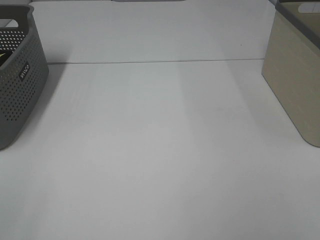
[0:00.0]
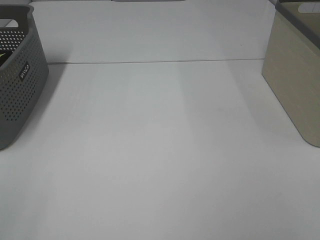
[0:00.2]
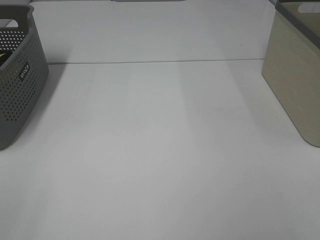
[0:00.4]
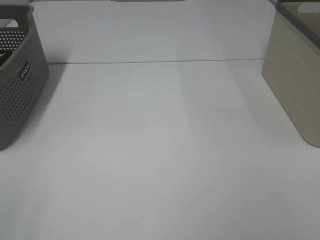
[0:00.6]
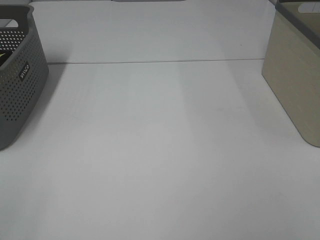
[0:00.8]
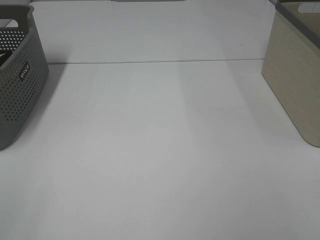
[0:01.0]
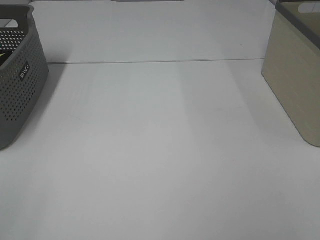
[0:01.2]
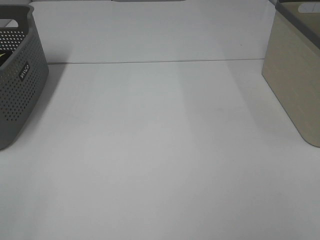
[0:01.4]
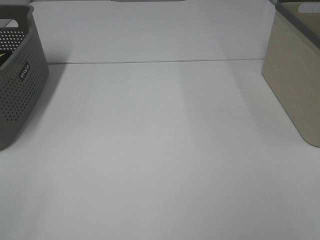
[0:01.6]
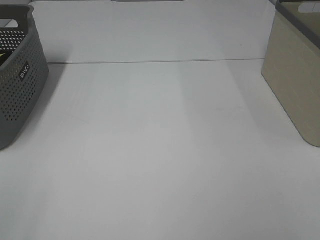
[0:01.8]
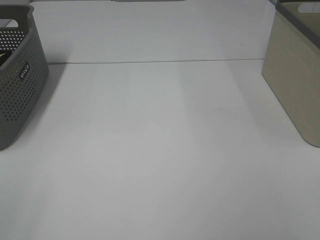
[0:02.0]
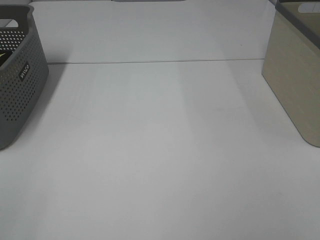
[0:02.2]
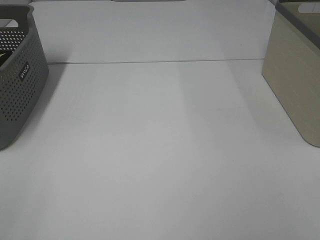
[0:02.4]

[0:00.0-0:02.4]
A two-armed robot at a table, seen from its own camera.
0:01.2 to 0:02.4: Both grippers stay put.

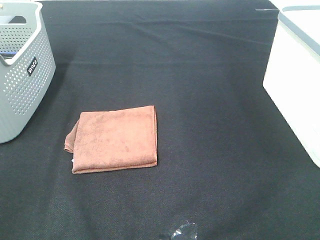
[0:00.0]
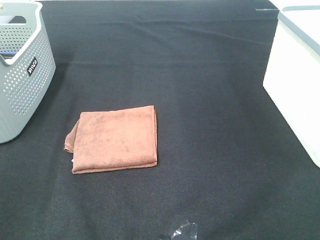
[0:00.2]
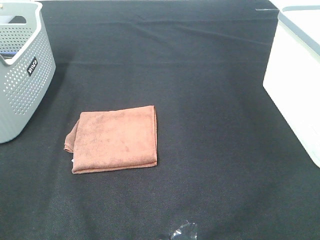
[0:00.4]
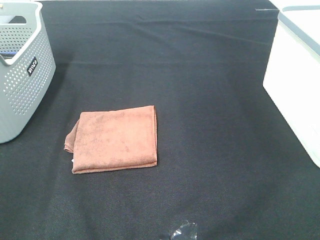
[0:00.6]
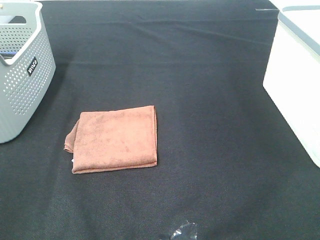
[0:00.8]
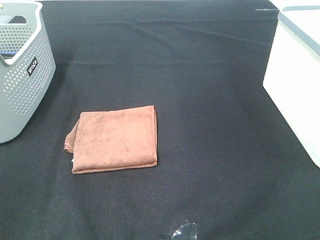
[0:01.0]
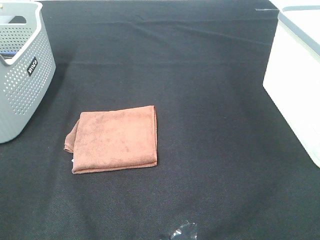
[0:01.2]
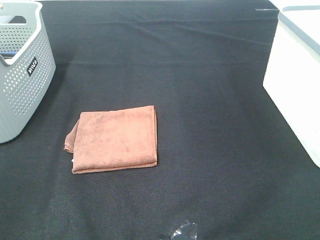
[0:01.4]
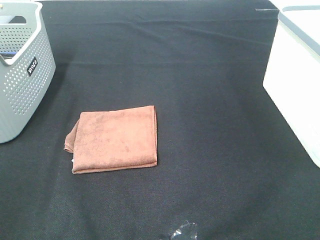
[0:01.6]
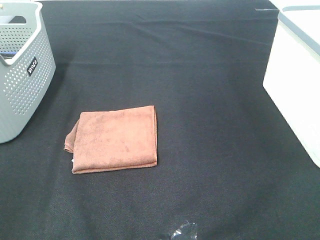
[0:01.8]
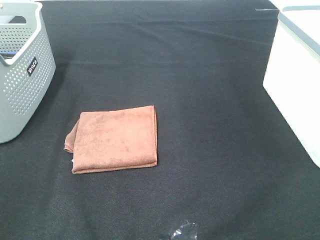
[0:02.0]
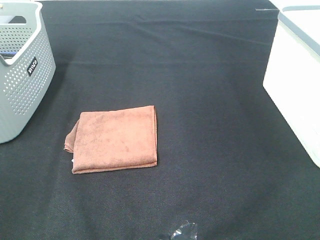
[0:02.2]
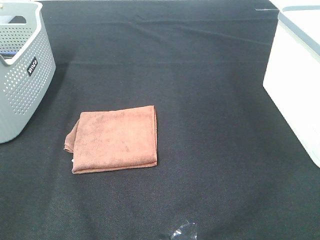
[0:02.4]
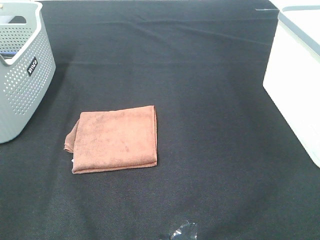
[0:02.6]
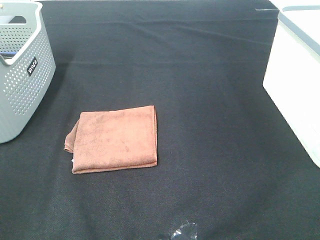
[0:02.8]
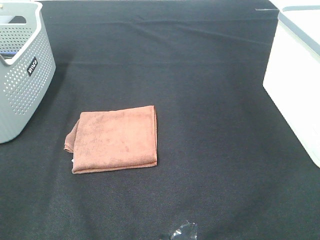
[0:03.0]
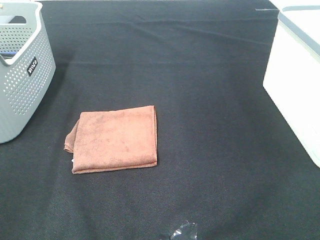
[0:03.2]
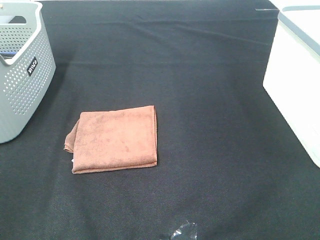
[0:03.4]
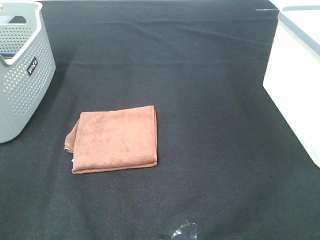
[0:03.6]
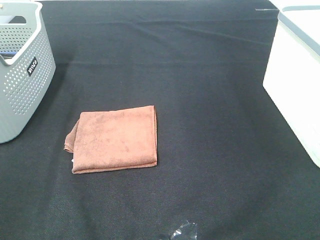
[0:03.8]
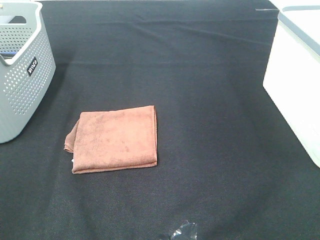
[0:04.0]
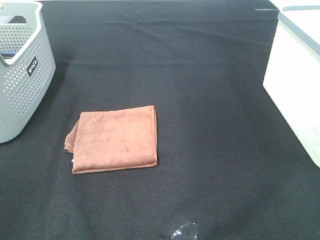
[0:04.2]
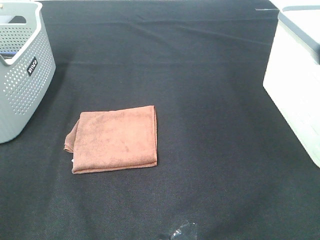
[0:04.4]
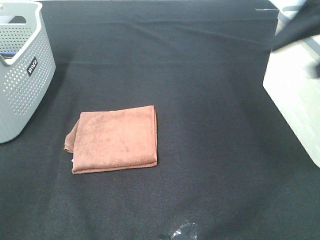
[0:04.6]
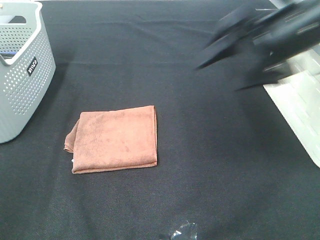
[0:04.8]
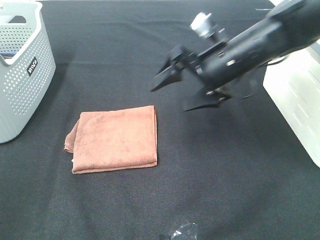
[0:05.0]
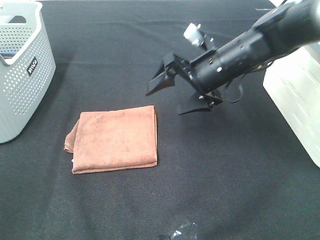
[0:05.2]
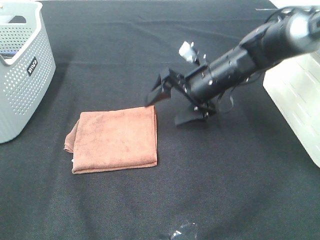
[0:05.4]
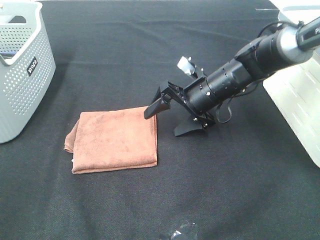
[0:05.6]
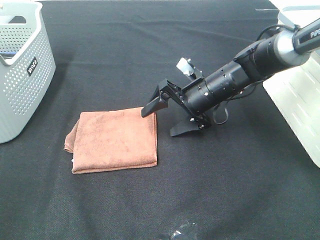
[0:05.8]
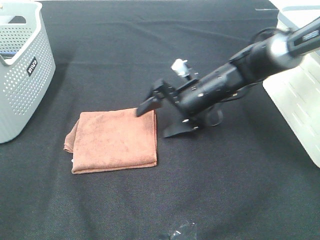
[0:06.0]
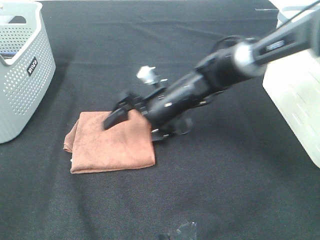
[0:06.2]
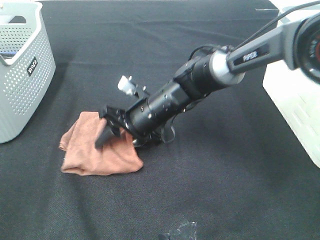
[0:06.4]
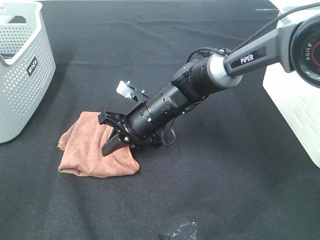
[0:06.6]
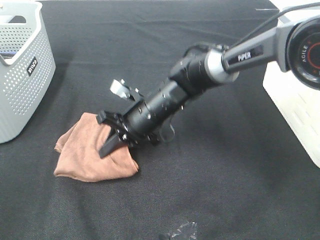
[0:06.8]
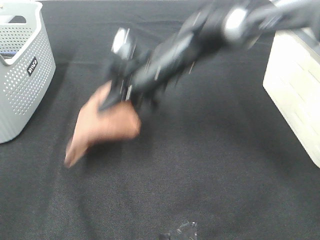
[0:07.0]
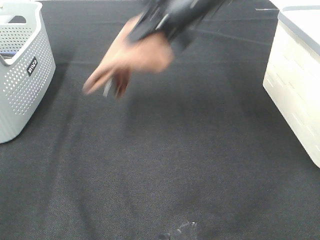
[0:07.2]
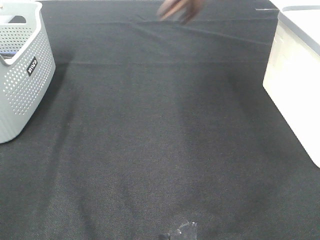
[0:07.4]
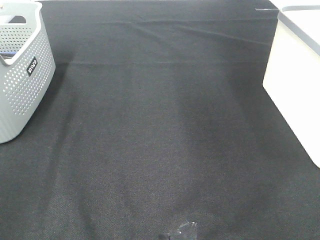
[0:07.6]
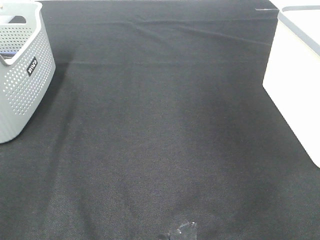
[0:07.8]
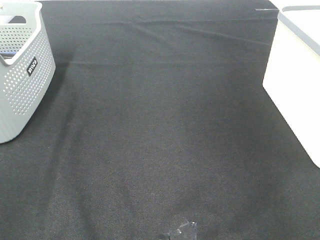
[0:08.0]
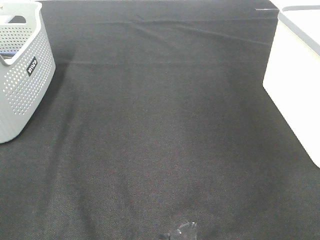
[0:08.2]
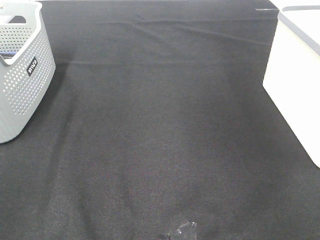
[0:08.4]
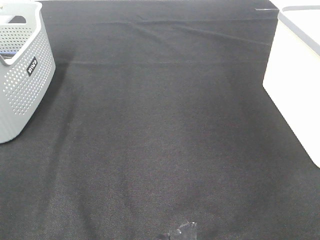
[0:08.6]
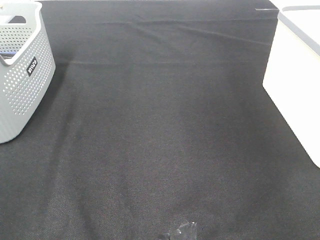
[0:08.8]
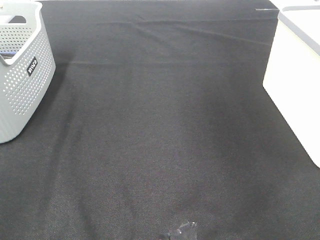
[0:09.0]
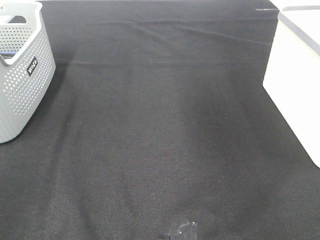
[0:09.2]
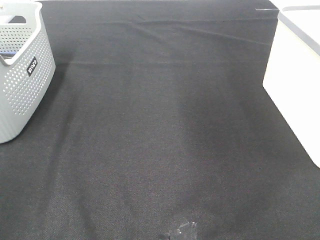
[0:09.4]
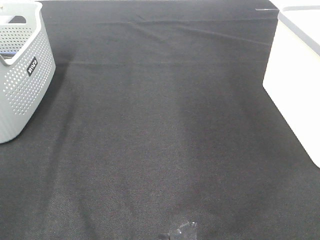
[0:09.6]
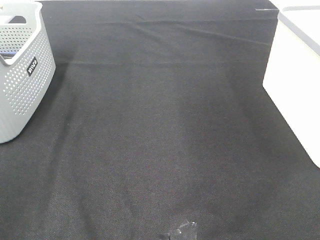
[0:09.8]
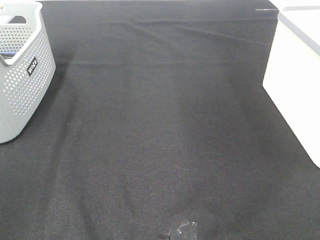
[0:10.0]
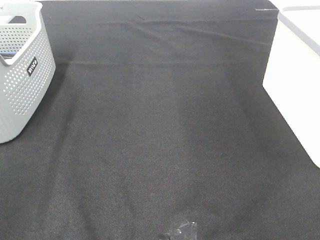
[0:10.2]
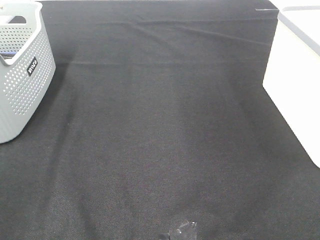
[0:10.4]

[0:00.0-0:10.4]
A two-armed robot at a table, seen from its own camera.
Step, 0:00.0 to 0:06.8: Right hand: grab the folded brown towel.
Step, 0:07.0 to 0:08.8: Right hand: place the brown towel in right basket.
0:00.0 to 0:03.0: Both grippers stay put.
0:04.4 to 0:06.0: The right gripper goes approximately 40 cm downward, to the left and forward.
0:06.0 to 0:07.4: The right gripper is displaced upward by roughly 30 cm, and closes up.
0:07.4 to 0:09.0: The right gripper goes approximately 15 cm to the right, and opens up.

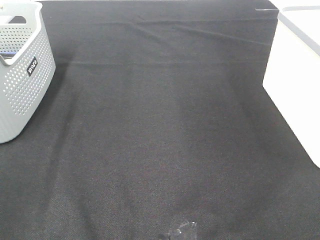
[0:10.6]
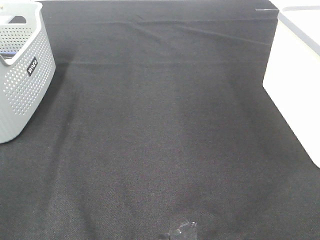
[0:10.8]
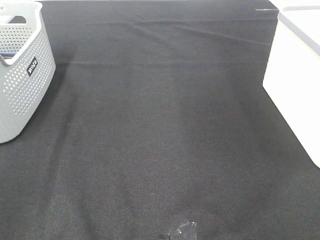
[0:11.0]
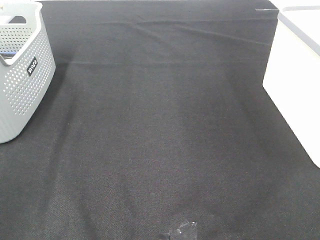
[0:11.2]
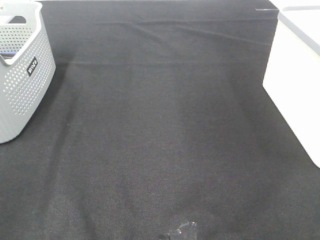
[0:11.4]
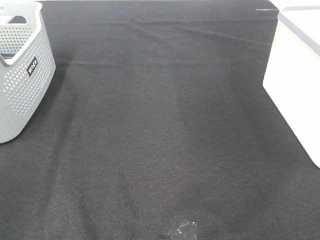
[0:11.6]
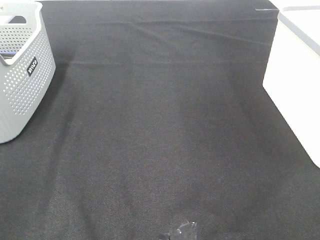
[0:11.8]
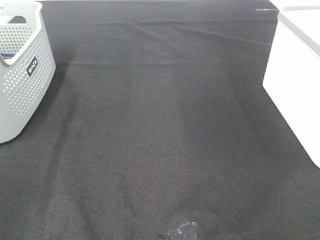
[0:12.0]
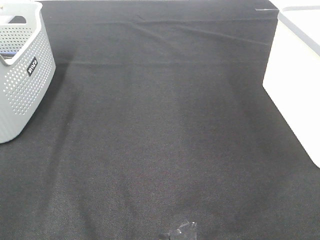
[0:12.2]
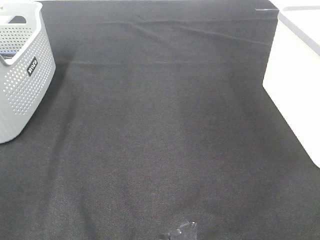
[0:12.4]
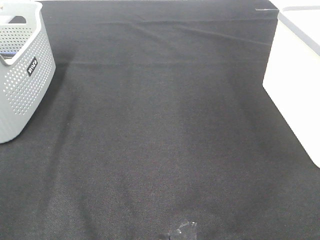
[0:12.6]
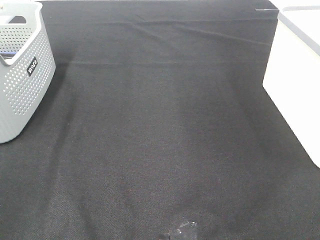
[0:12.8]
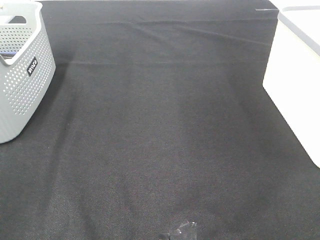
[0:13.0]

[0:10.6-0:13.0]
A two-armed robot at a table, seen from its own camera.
0:11.8 to 0:13.0: The two grippers keep their place.
